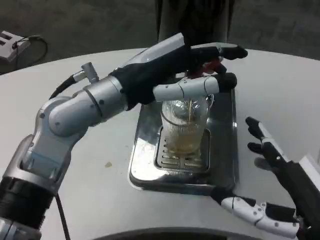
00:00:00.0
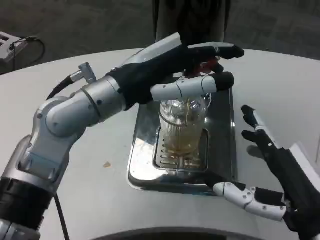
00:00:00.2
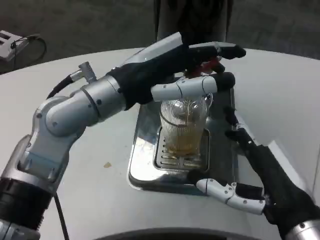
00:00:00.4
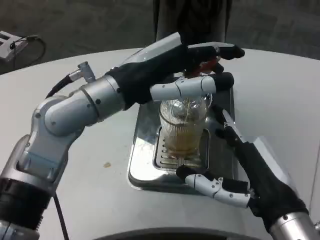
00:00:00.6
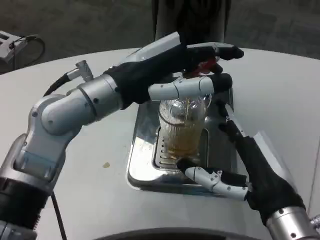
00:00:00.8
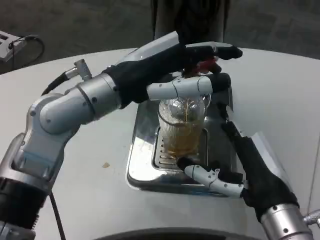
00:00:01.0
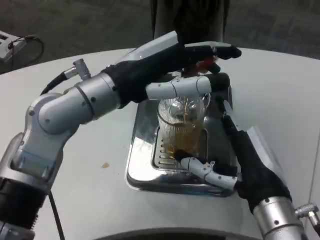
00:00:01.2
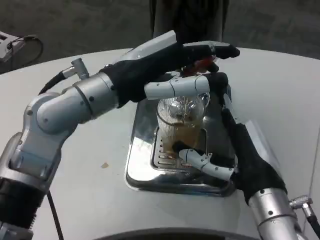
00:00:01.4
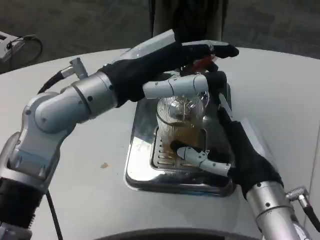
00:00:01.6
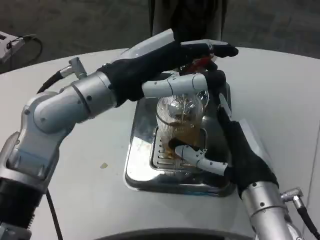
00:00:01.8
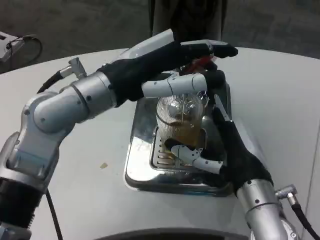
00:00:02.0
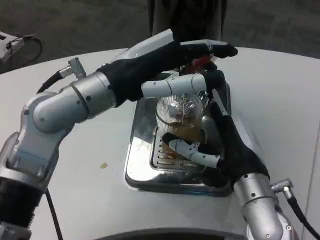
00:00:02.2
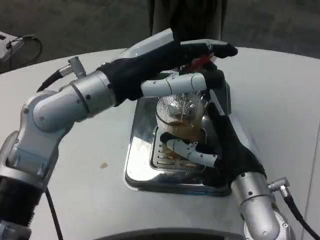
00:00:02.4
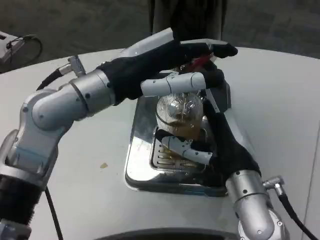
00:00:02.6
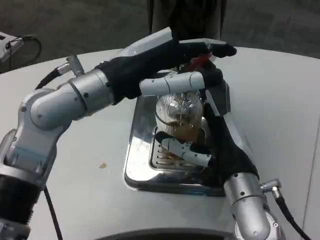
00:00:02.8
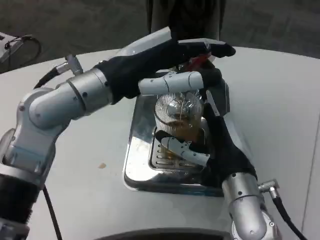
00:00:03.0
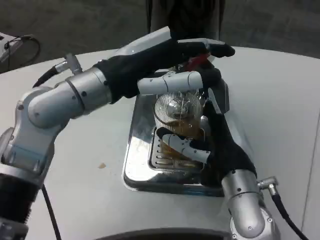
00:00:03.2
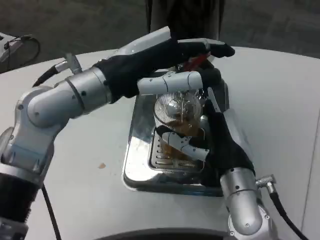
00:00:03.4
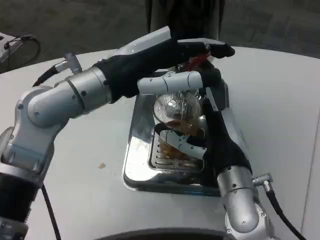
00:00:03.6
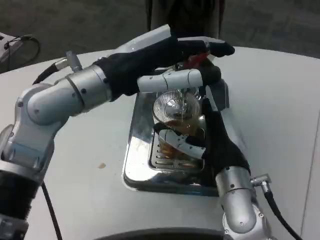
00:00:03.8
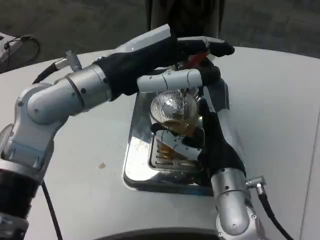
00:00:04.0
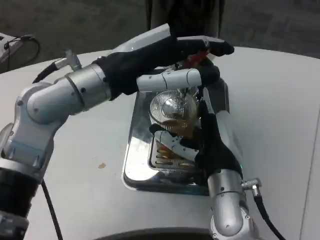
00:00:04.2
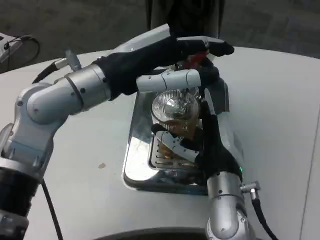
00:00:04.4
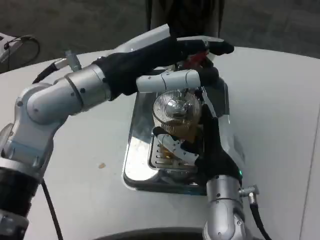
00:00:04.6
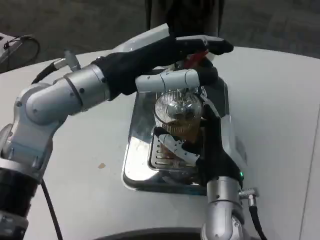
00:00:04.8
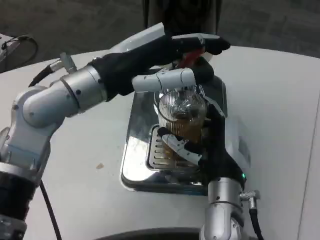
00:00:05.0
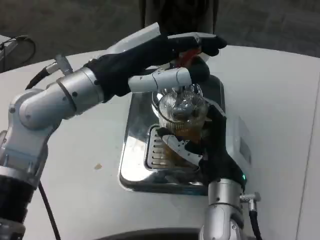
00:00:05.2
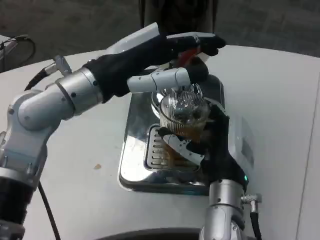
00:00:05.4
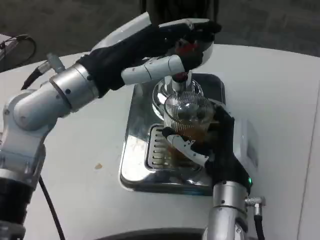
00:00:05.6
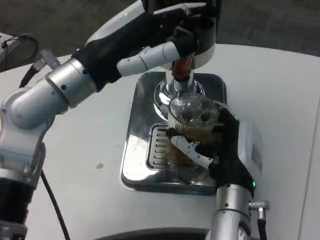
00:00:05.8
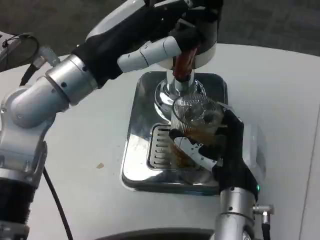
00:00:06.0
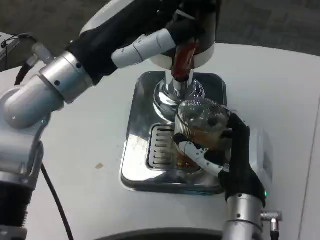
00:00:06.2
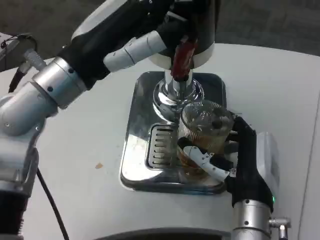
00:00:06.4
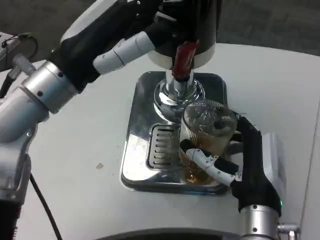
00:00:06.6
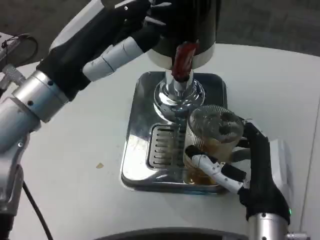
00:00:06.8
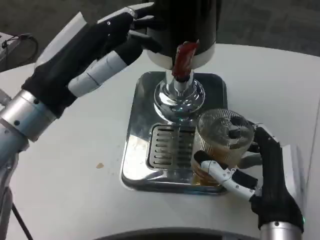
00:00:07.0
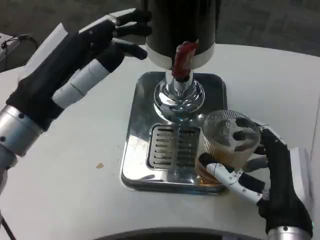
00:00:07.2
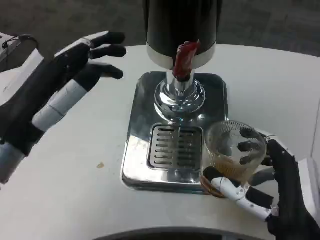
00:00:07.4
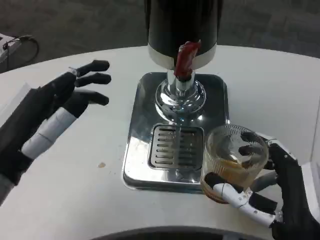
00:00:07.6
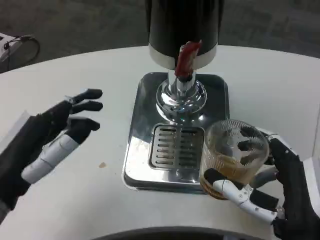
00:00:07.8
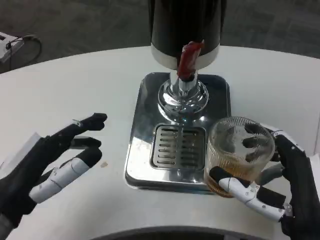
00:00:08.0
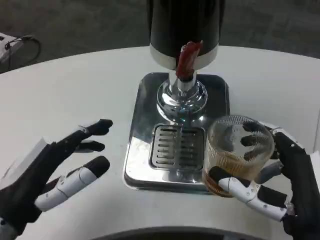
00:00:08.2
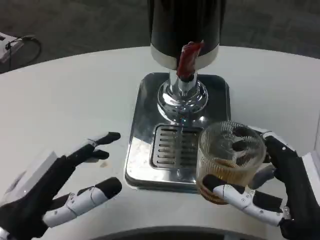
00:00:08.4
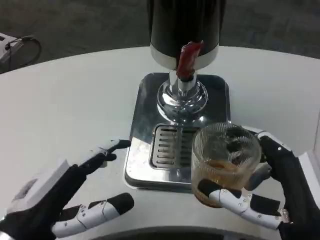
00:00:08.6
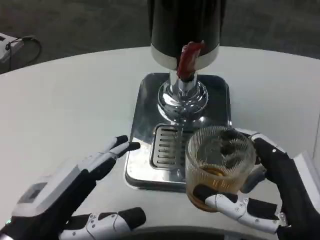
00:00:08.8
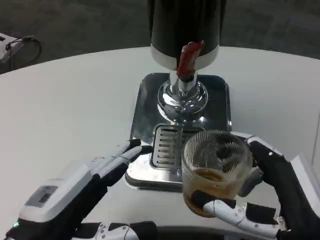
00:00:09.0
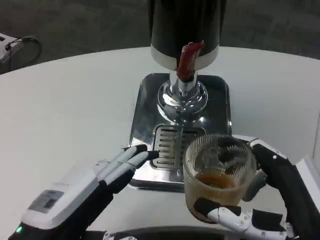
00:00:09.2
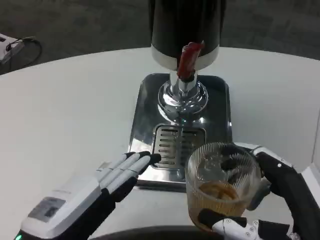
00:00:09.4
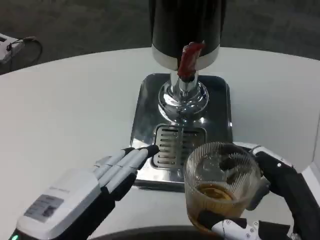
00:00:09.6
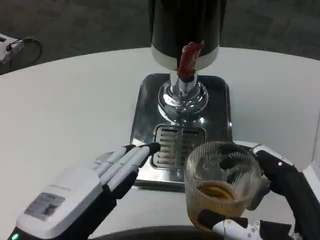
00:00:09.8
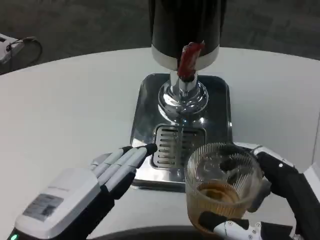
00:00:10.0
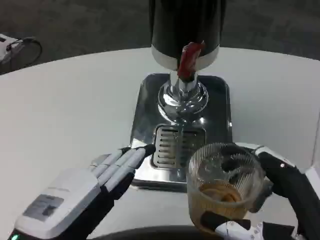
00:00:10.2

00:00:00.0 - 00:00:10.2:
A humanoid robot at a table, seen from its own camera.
Task of the whole recording: Grasp the cup under the faucet to collect the drink, then remove the cup.
00:00:00.0 - 00:00:01.4: The right hand shifts about 10 cm forward and to the left.
00:00:03.0 - 00:00:04.4: There are only small adjustments of the hands.
00:00:05.8 - 00:00:07.2: The right hand moves backward and to the right, about 10 cm. The left hand travels backward by roughly 5 cm.
00:00:07.2 - 00:00:08.8: The right hand moves about 5 cm. Meanwhile the left hand goes some 15 cm downward and backward.

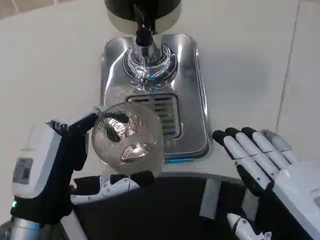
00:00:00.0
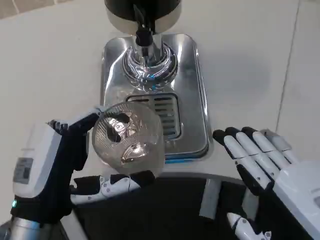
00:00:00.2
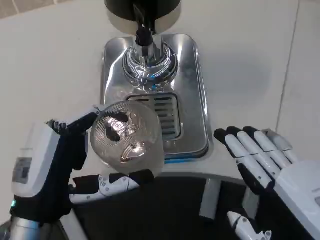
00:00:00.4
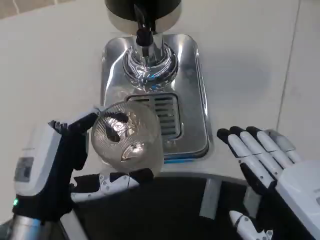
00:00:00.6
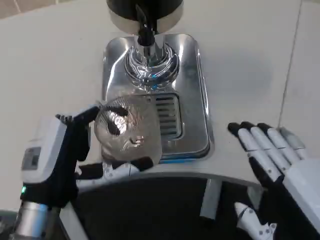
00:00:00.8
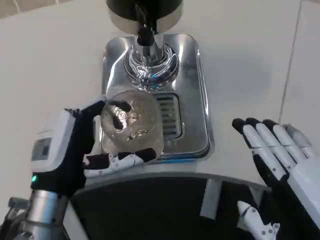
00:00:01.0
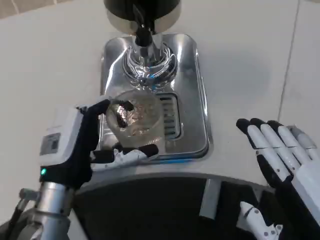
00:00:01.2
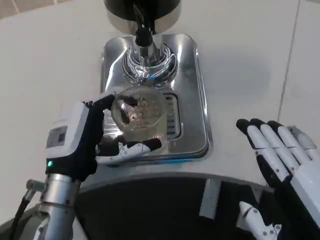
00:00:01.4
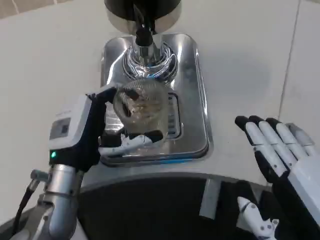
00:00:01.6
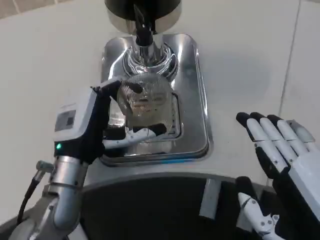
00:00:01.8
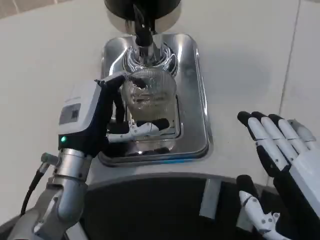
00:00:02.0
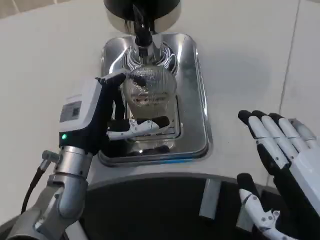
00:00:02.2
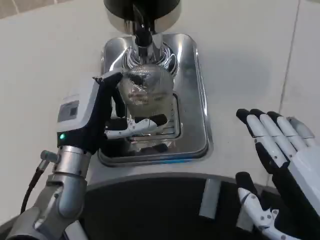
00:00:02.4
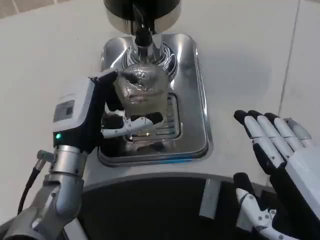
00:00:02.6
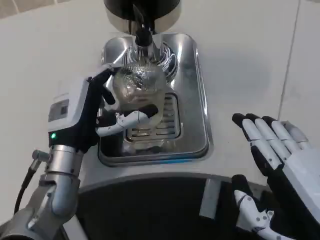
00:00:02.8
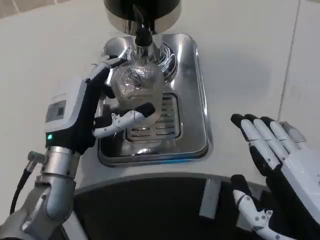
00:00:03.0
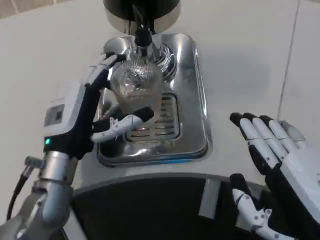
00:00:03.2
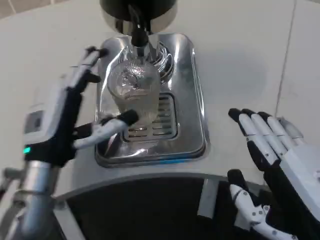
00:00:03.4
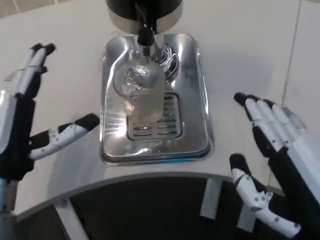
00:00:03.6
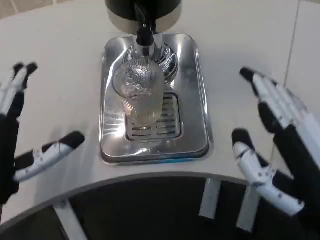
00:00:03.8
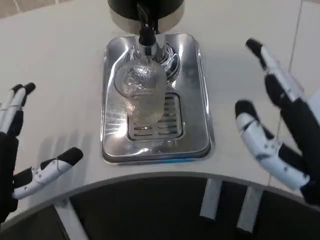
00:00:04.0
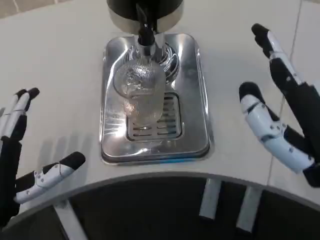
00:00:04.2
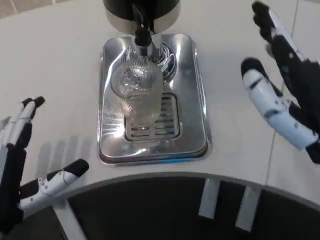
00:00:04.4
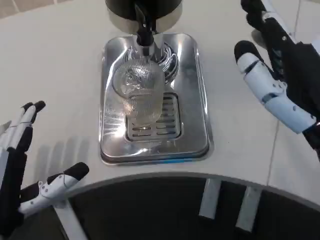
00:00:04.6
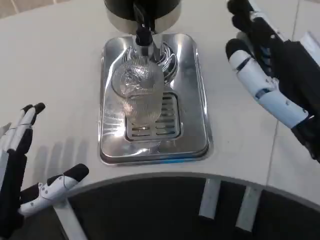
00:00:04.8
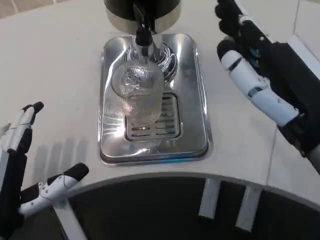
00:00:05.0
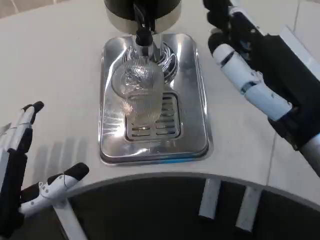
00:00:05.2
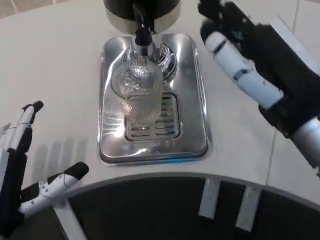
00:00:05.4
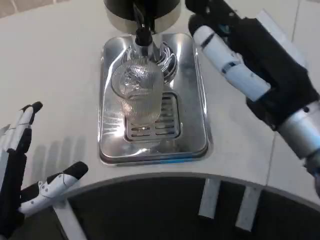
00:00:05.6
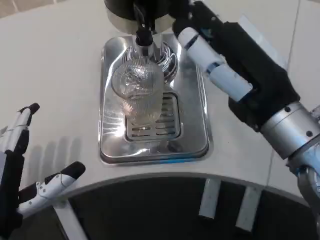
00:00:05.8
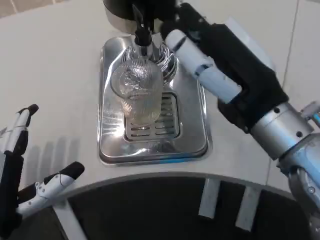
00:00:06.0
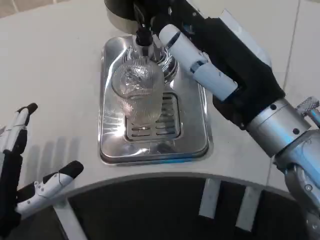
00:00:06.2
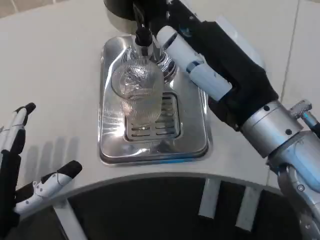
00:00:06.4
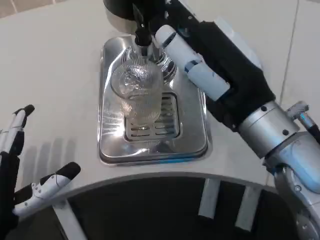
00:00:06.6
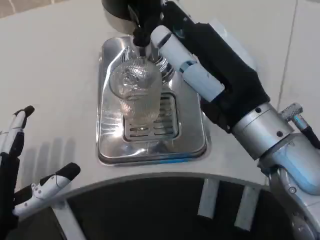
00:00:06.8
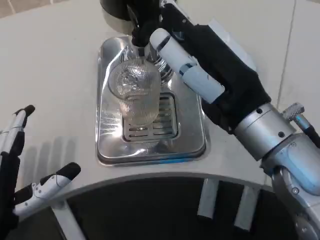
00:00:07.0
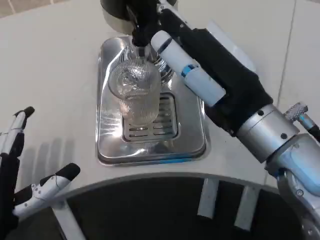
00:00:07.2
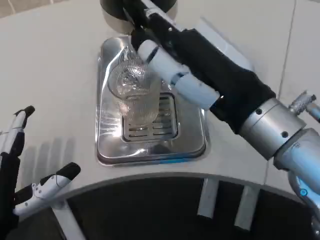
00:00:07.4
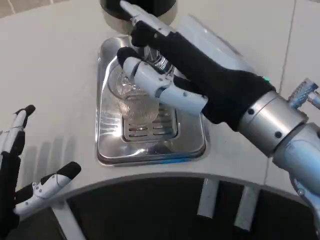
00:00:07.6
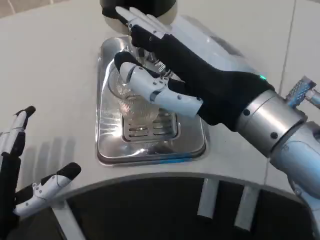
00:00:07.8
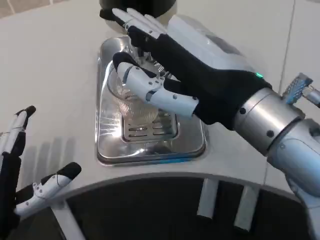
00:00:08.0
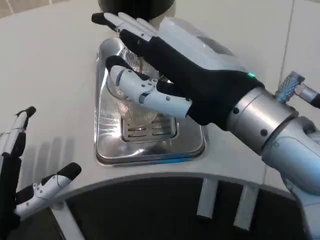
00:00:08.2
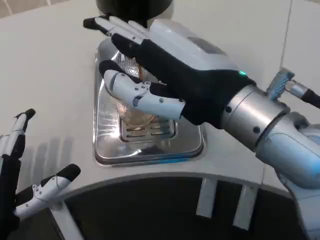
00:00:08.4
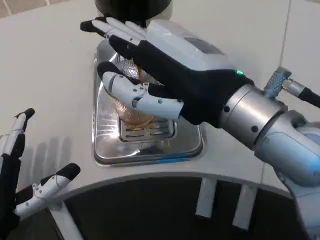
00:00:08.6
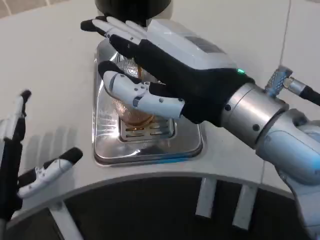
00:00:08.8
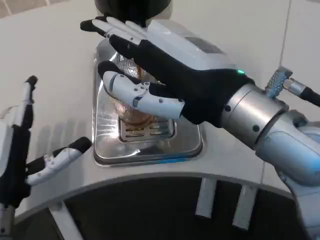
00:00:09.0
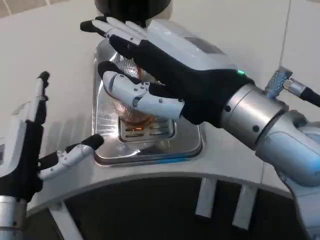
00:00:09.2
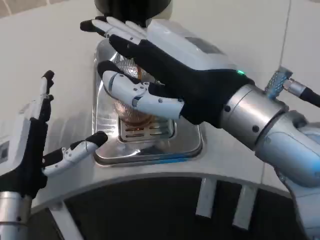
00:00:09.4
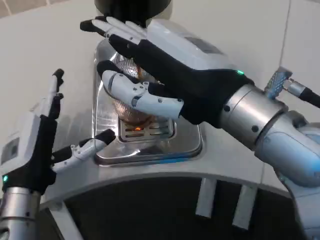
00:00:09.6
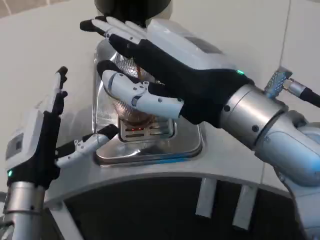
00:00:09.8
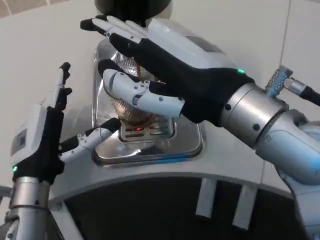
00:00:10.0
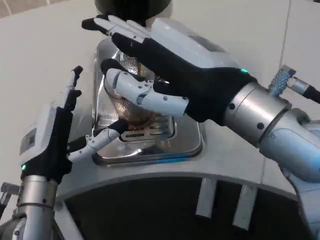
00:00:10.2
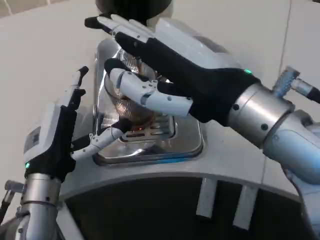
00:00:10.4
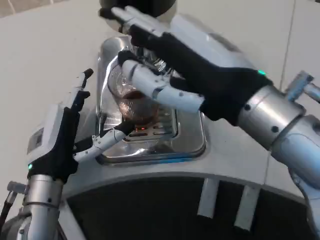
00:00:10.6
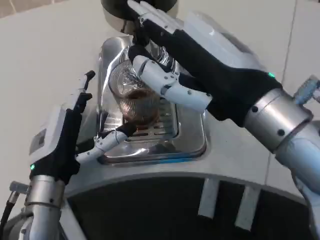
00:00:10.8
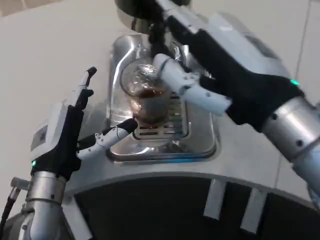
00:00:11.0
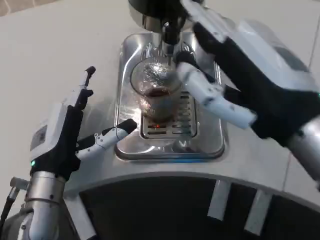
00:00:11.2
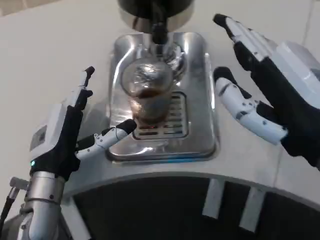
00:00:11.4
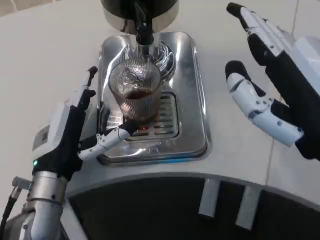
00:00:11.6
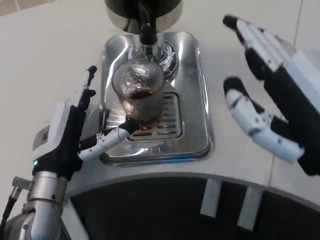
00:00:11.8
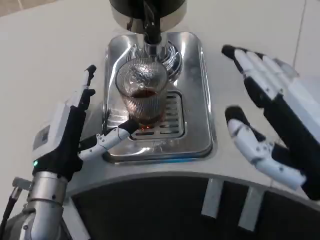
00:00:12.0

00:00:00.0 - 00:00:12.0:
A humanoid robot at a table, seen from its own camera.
Task of the whole recording: Grasp the cup under the faucet to collect the drink, then remove the cup.
00:00:00.0 - 00:00:01.6: The left hand heads forward, covering about 10 cm.
00:00:01.6 - 00:00:03.0: The hands move only a little.
00:00:03.0 - 00:00:04.4: The right hand heads upward and forward, covering roughly 10 cm. The left hand moves backward and to the left, about 15 cm.
00:00:04.4 - 00:00:06.0: The right hand moves forward, roughly 5 cm.
00:00:09.0 - 00:00:10.4: The left hand moves about 5 cm.
00:00:10.4 - 00:00:12.0: The right hand shifts roughly 10 cm backward, to the right and downward.
